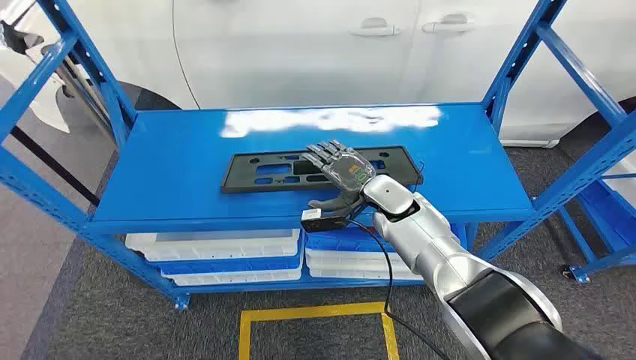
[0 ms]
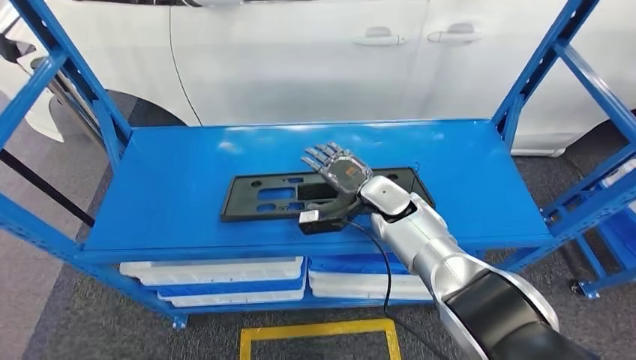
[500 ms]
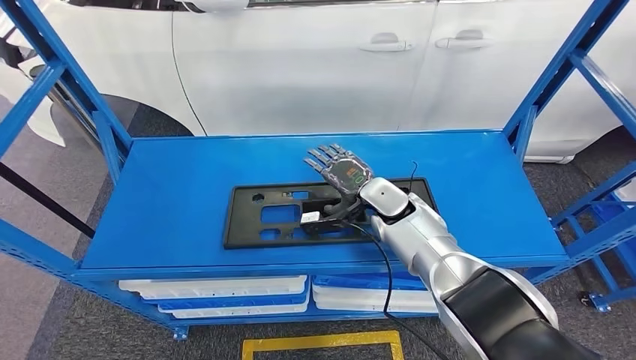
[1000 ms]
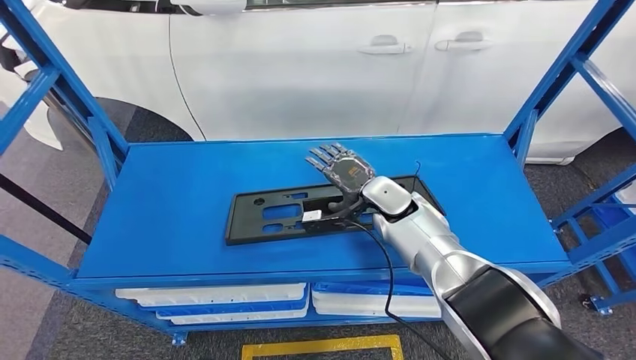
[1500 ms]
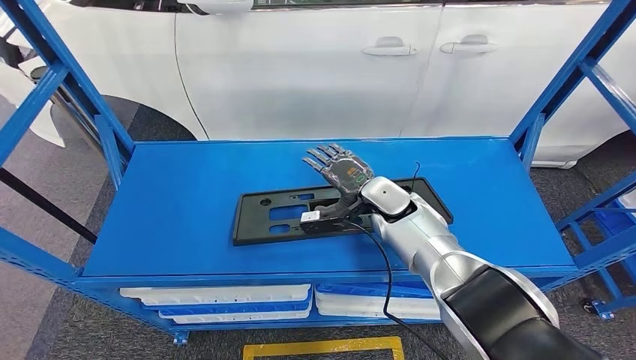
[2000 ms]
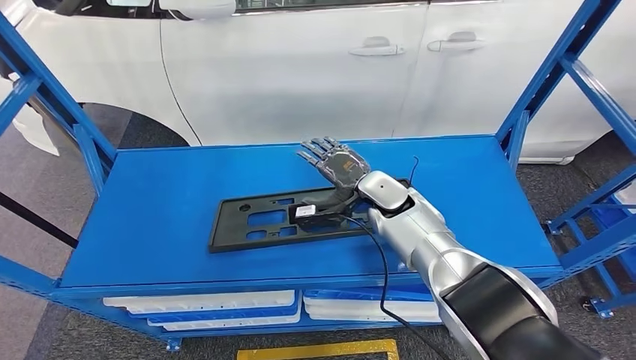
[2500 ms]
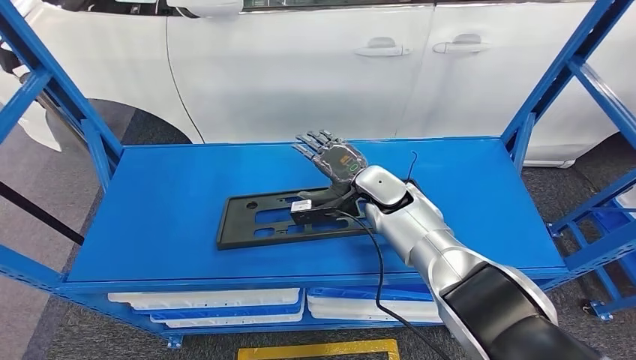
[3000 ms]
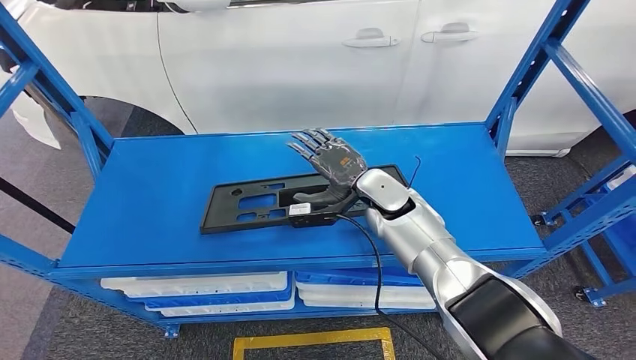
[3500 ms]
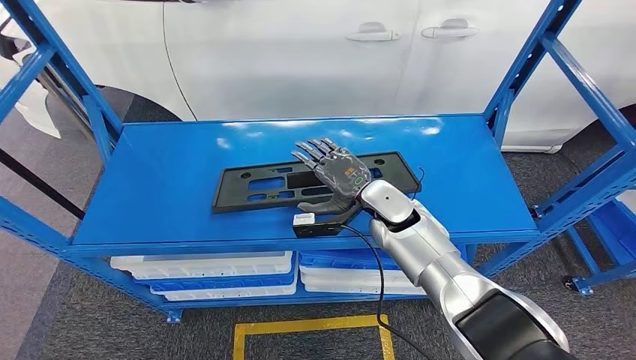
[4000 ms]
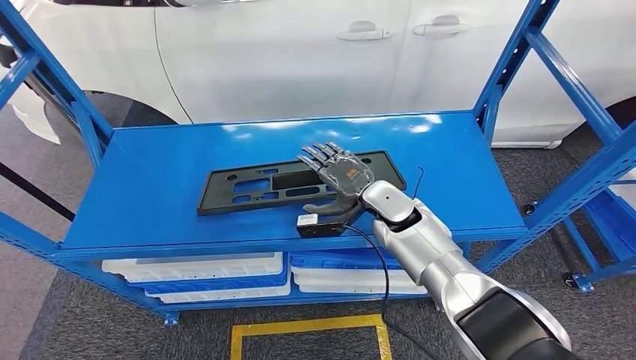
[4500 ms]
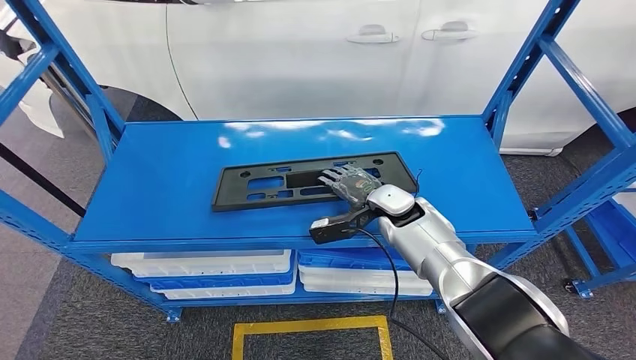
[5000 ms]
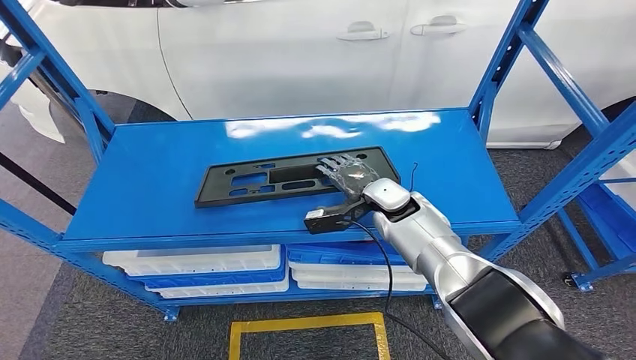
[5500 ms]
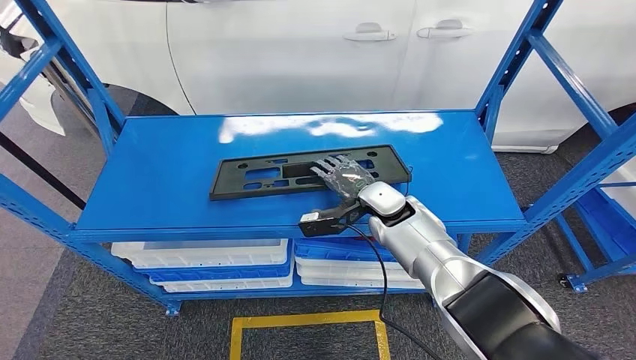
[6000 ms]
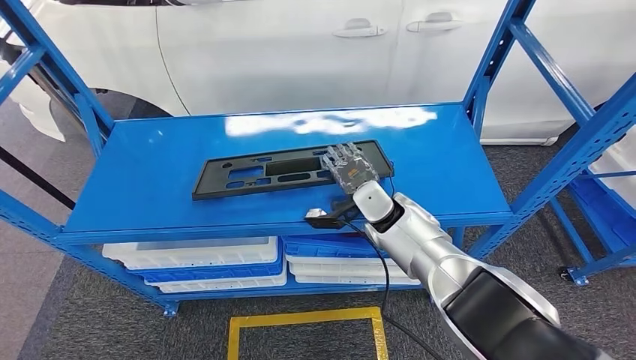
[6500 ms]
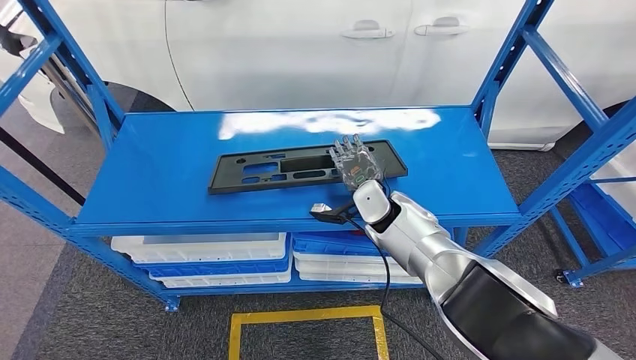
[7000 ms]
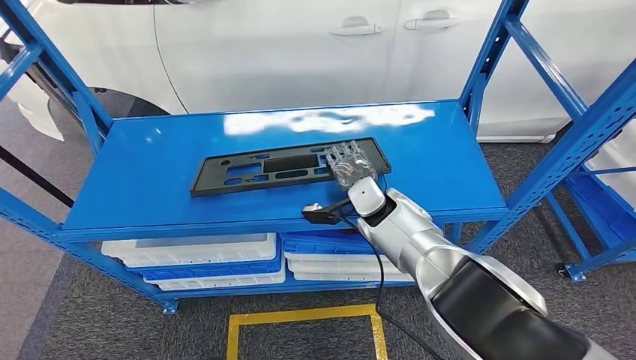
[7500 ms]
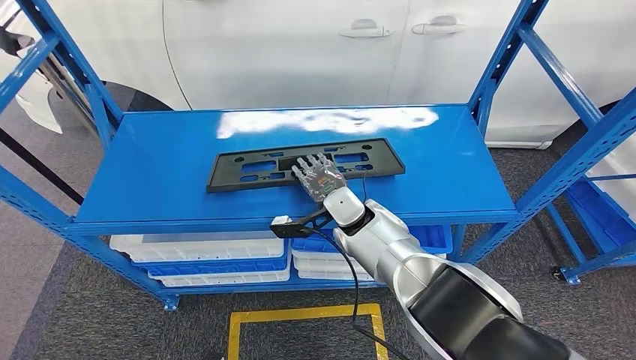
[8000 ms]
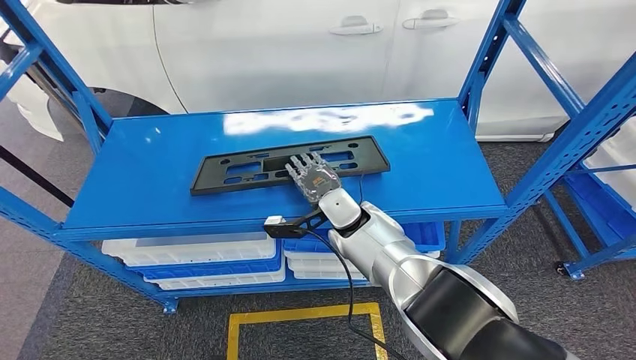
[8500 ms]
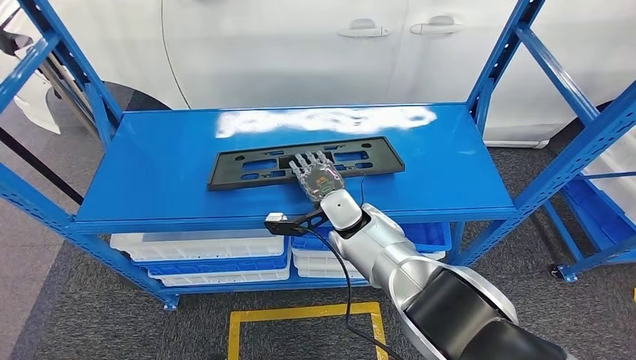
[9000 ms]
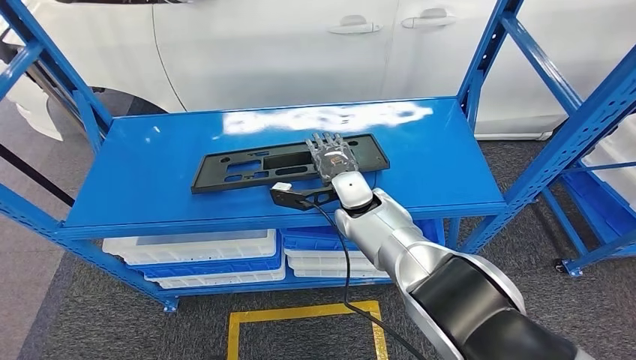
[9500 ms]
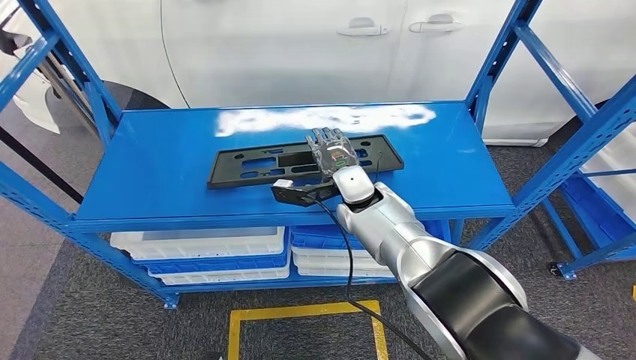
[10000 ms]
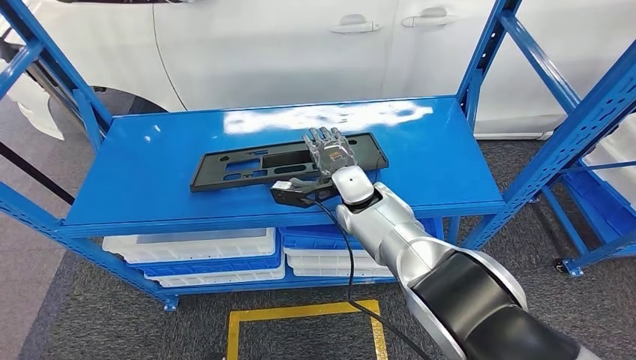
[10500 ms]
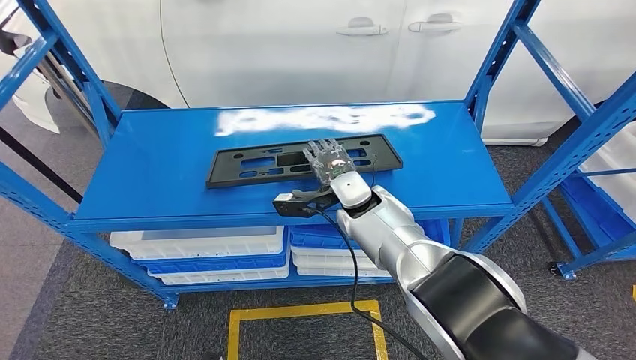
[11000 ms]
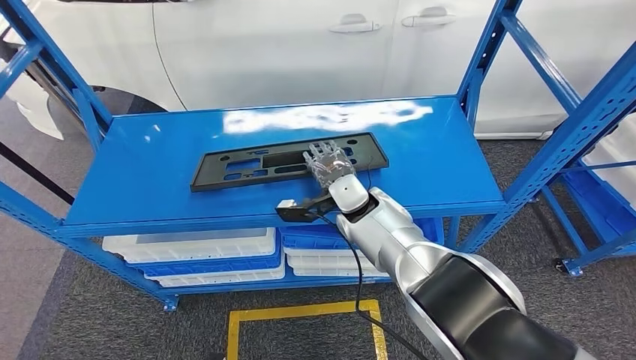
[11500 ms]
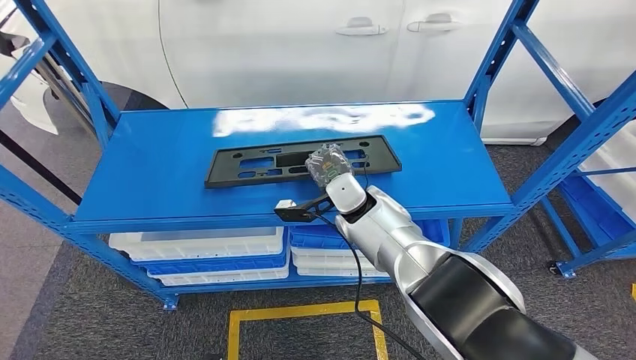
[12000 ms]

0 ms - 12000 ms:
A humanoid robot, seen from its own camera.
8000 ms - 12000 ms: There are only small adjustments of the hands.

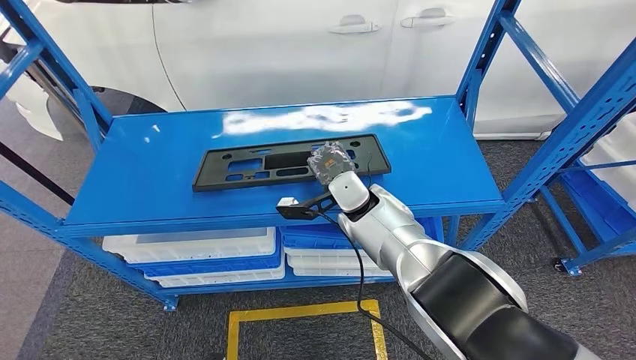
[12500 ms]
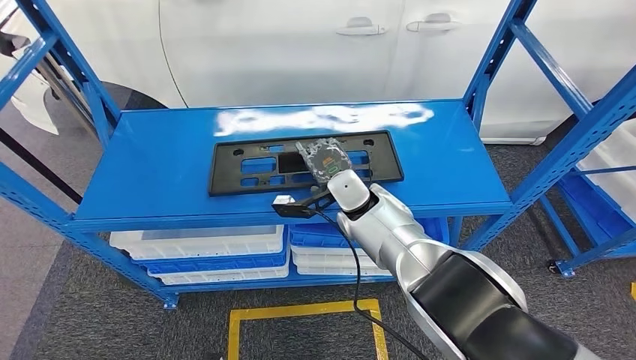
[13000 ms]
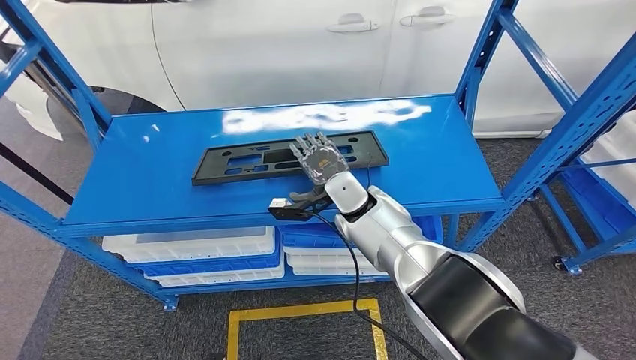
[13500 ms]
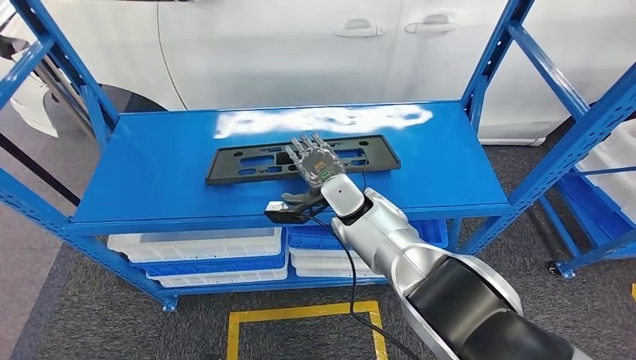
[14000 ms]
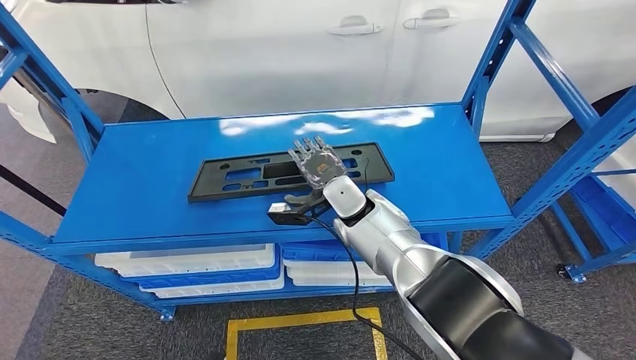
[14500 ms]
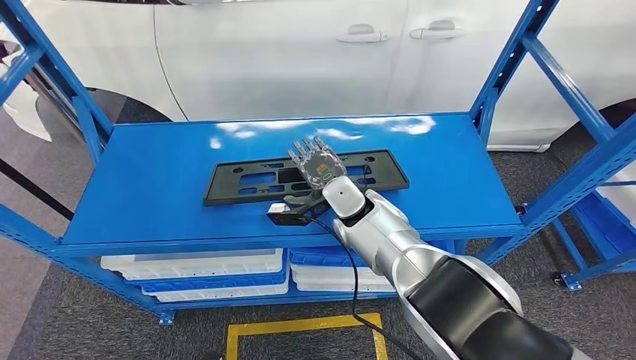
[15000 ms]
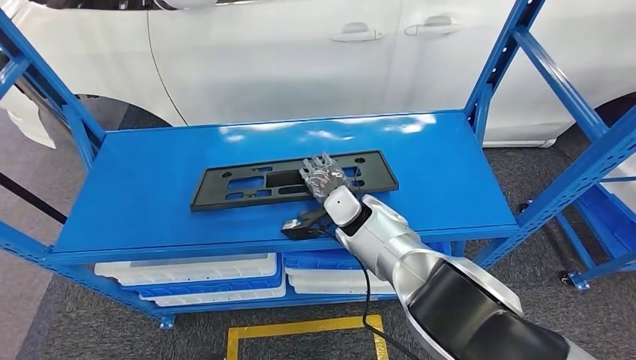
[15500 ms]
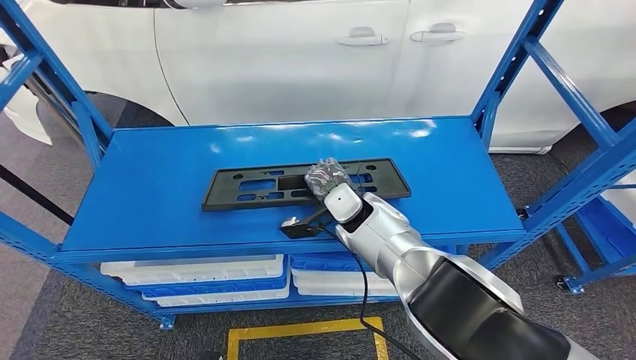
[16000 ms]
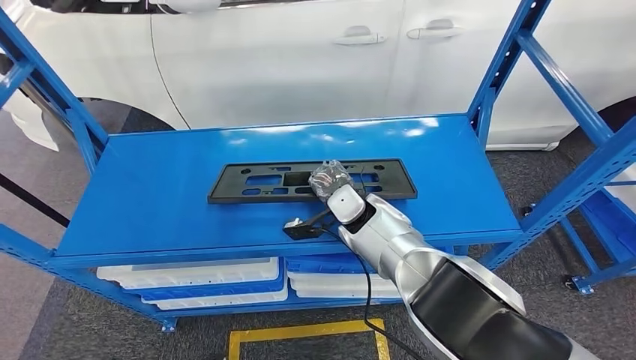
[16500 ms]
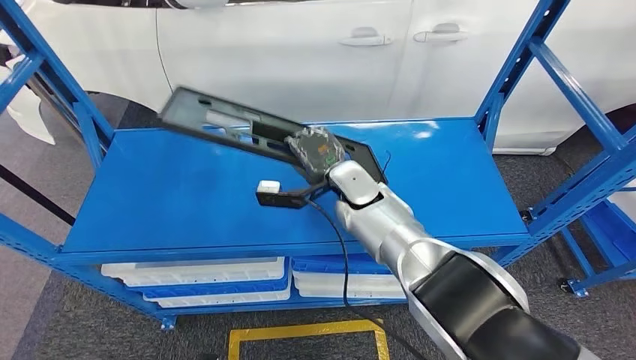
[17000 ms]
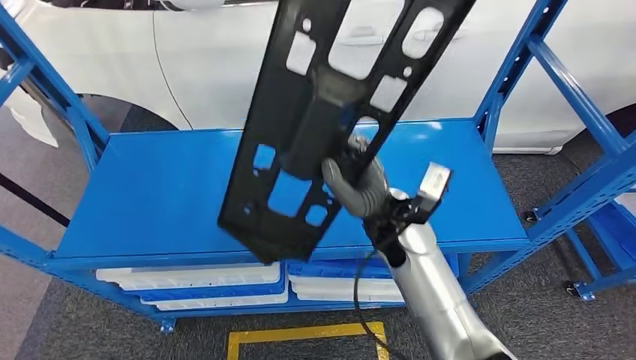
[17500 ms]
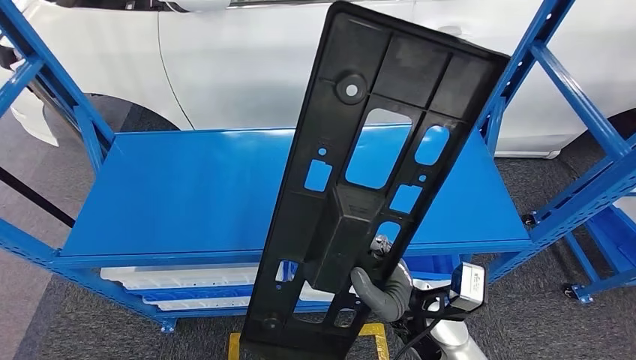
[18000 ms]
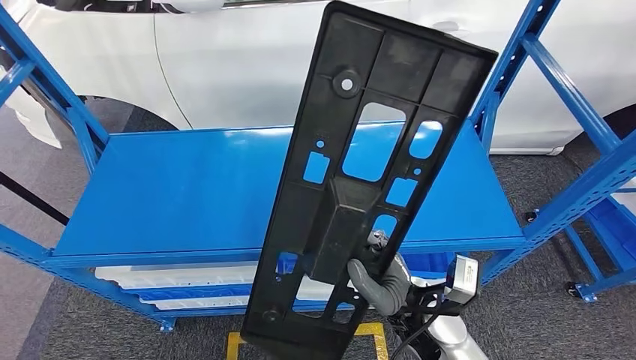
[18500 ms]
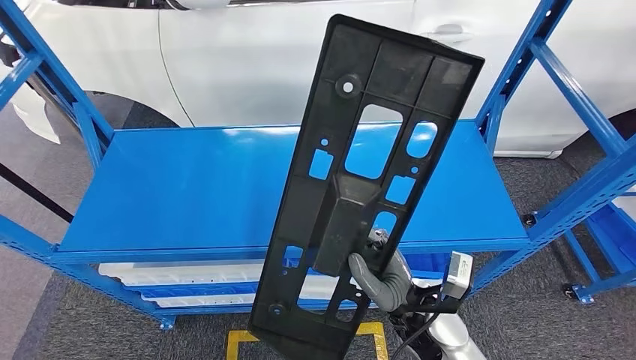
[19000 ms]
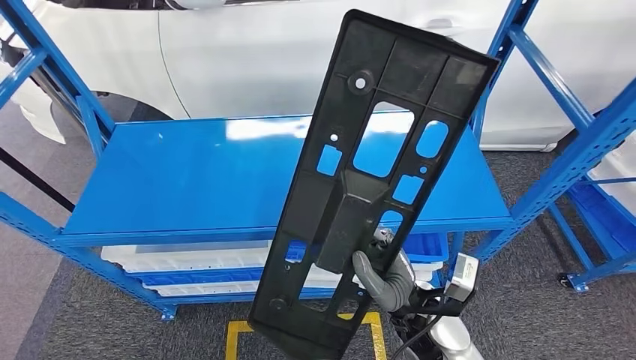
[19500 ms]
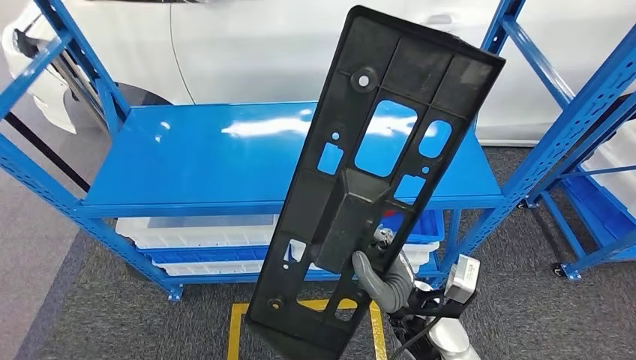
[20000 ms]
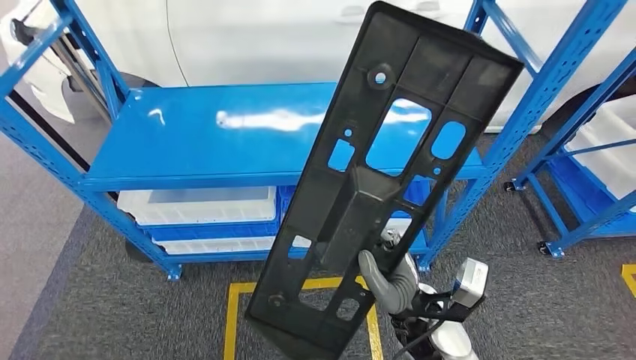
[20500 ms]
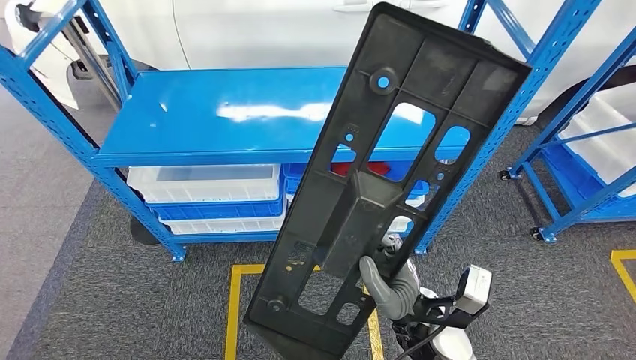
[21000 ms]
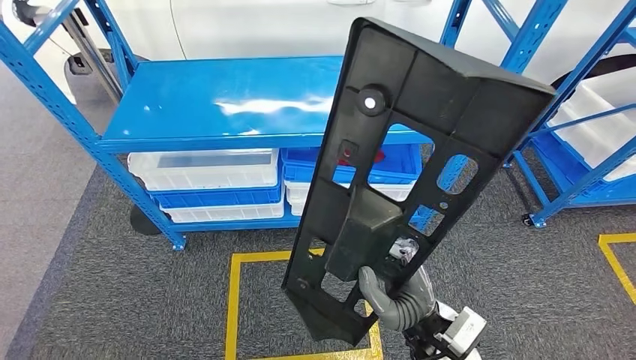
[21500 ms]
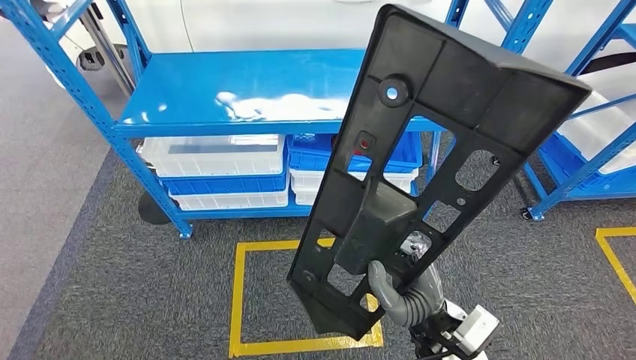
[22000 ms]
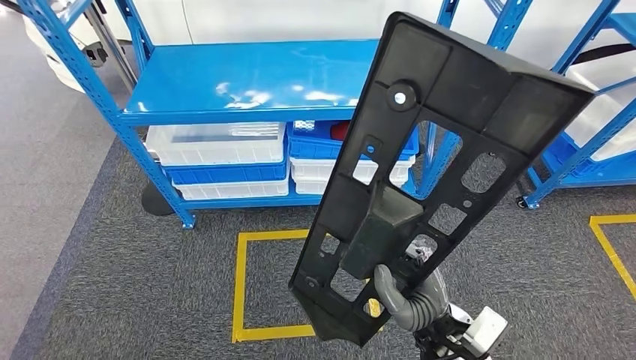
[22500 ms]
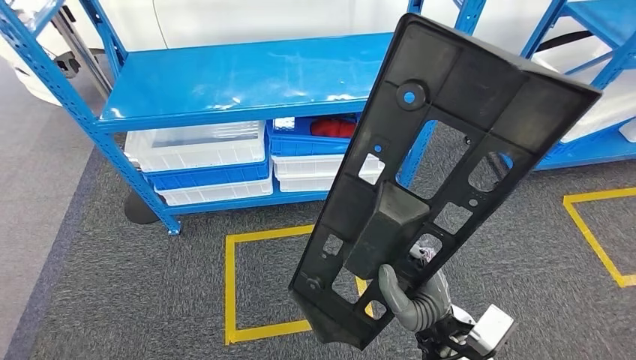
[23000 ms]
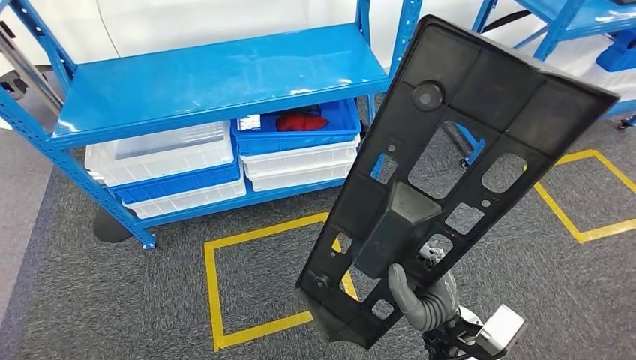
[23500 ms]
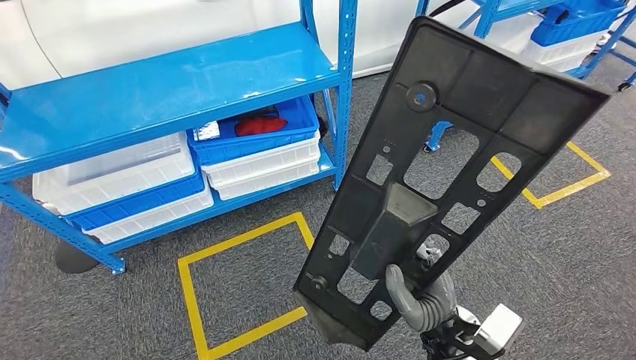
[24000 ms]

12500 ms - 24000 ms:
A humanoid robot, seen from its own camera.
Step, 12500 ms - 19000 ms: Pick up the large material from the shelf.
